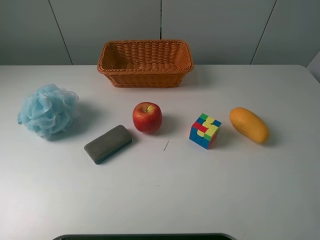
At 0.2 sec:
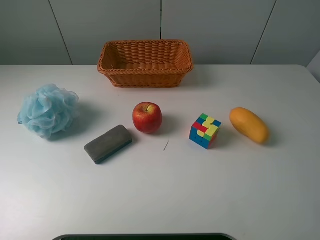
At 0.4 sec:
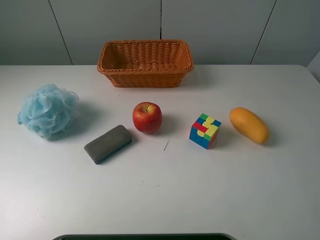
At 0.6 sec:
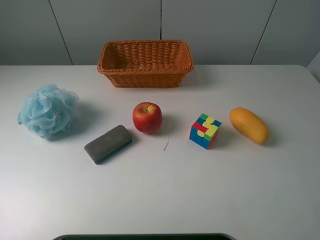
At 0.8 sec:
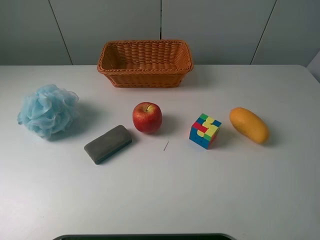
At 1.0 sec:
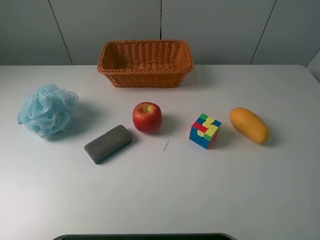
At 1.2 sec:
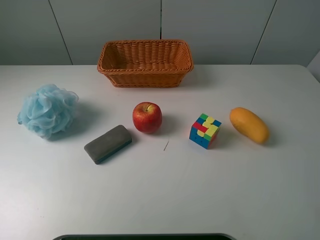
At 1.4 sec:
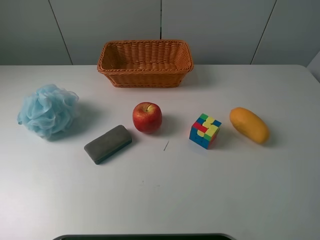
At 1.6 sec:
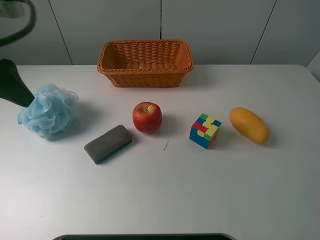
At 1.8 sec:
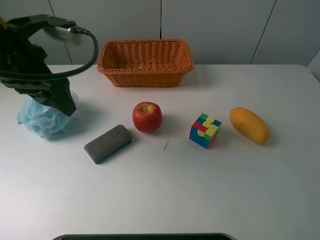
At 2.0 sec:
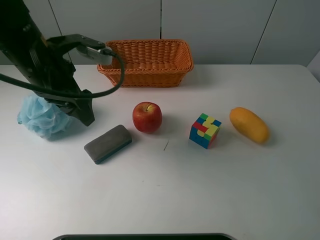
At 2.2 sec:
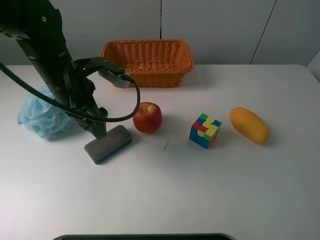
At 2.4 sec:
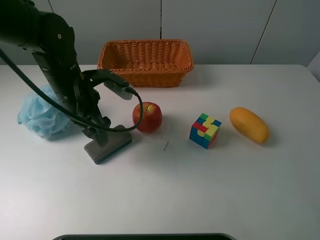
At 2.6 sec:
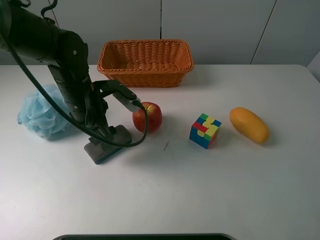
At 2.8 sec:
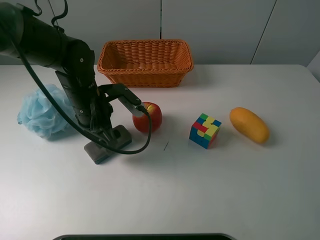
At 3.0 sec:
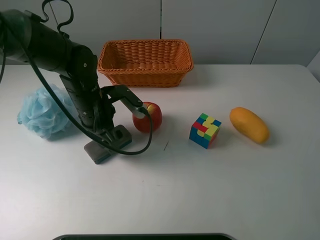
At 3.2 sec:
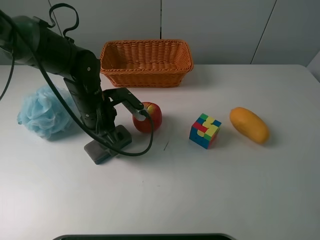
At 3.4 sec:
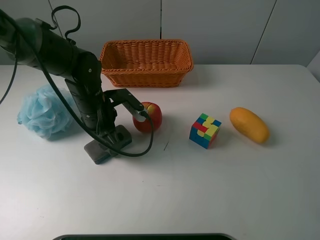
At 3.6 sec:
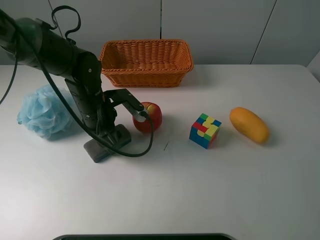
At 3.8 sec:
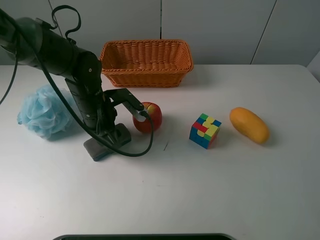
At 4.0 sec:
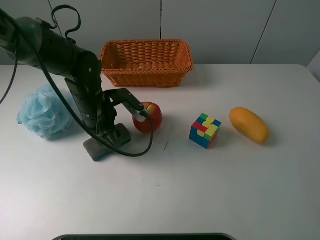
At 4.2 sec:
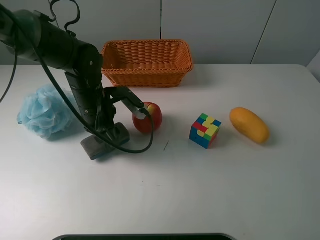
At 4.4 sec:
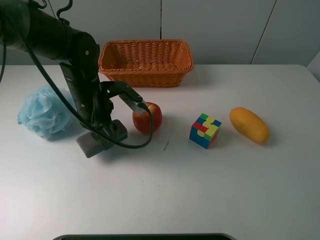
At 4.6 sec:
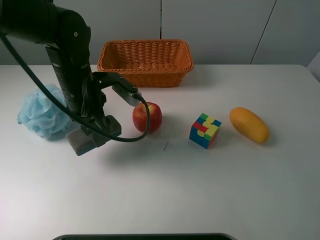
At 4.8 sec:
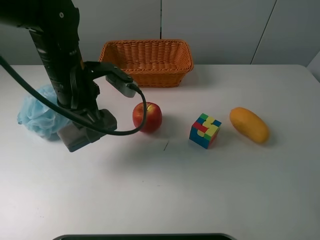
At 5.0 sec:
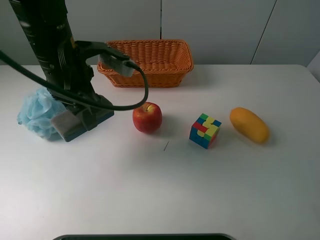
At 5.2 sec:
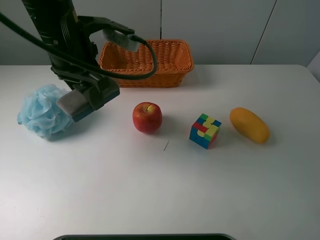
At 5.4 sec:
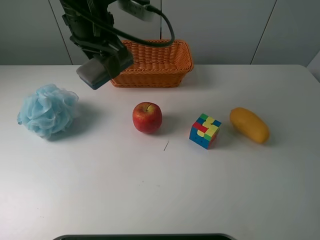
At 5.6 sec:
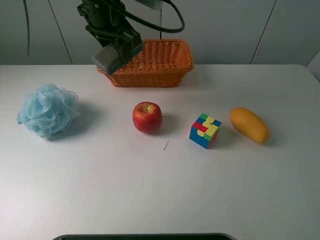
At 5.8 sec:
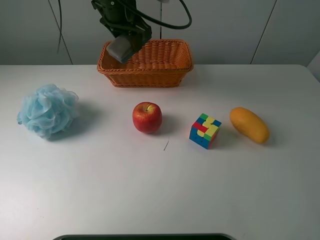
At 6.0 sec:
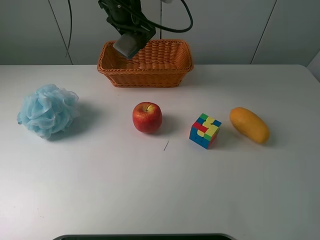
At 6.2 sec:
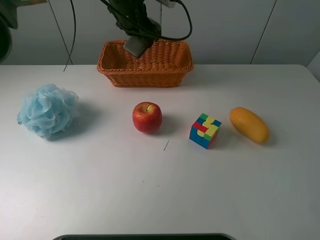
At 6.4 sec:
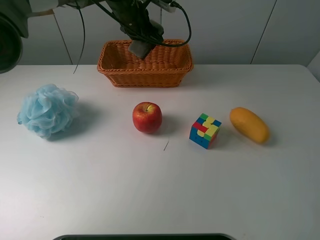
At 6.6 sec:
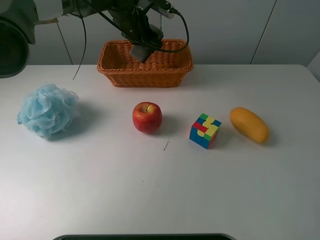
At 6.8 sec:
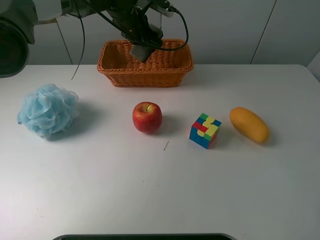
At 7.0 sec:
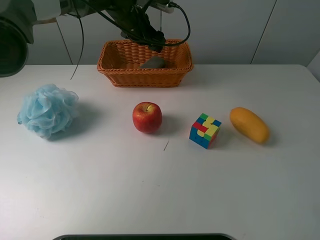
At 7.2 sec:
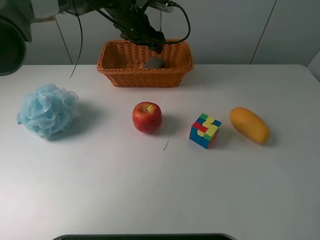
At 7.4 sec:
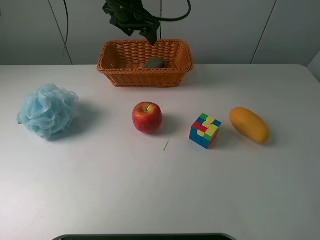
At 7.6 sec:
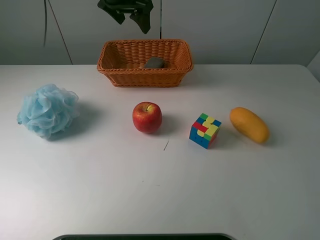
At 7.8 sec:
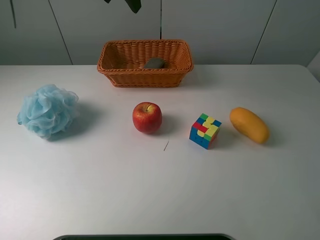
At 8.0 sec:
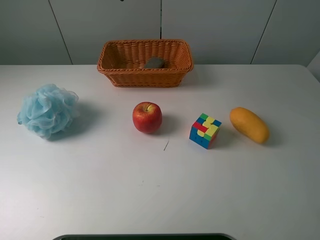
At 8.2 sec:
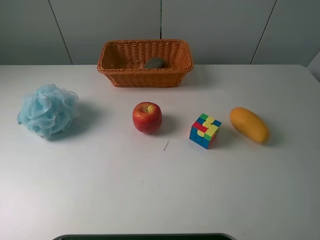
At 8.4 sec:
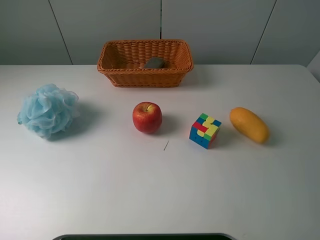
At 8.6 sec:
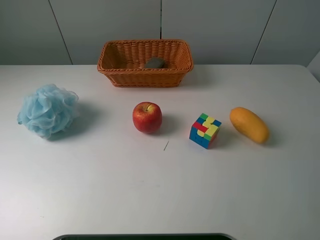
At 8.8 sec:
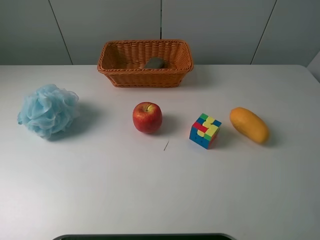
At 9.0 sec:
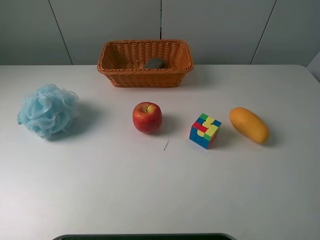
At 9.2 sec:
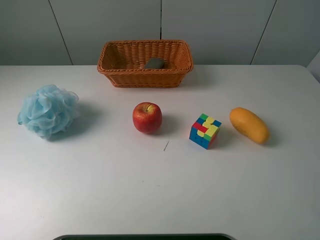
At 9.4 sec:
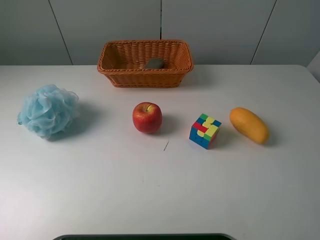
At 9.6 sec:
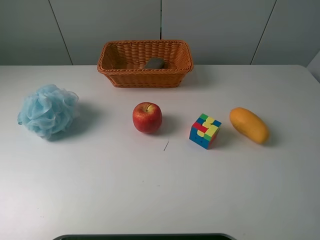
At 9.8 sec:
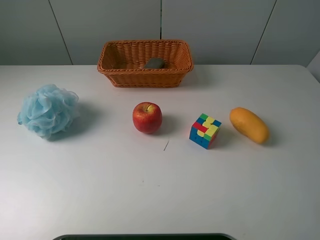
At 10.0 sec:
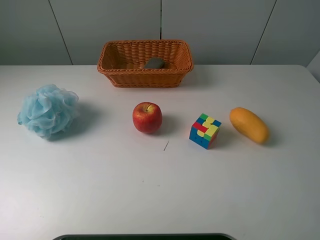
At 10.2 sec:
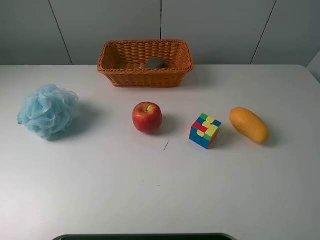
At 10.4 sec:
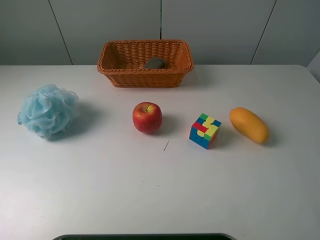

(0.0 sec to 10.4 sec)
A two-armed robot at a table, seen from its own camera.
Task of the whole recording: use a picker to grab the item closest to the apple and place it in the basket.
Step, 0.0 sec - 4.0 sec: Grasp the chalkboard eraser with the left gripper.
Step, 4.2 sec - 7.2 sec: Place the chalkboard eraser into the basket with the left gripper.
0.0 sec - 1.4 sec: The left gripper travels forward by roughly 20 cm.
1.4 sec - 3.0 sec: The left gripper goes some 30 cm downward, to the right and forward.
3.0 sec - 4.4 sec: The left gripper closes up.
4.4 sec - 6.0 sec: The left gripper is displaced forward and upward by some 20 cm.
6.0 sec - 7.4 sec: The left gripper opens up.
7.4 sec - 9.0 sec: The left gripper goes approximately 50 cm backward and to the left.

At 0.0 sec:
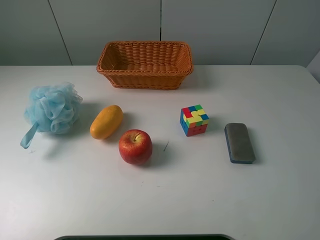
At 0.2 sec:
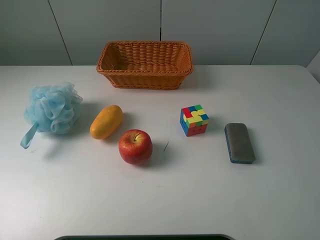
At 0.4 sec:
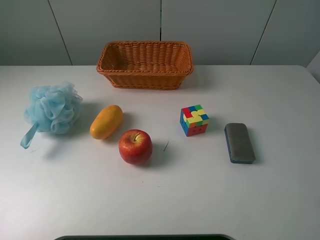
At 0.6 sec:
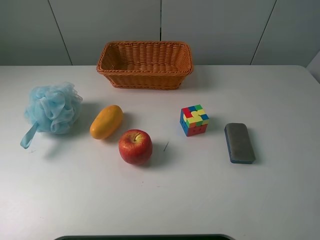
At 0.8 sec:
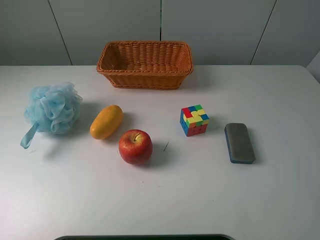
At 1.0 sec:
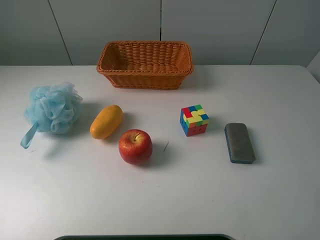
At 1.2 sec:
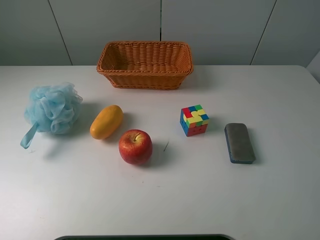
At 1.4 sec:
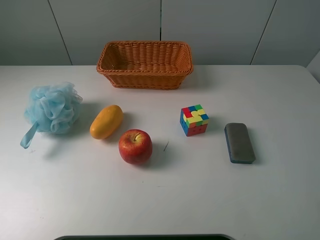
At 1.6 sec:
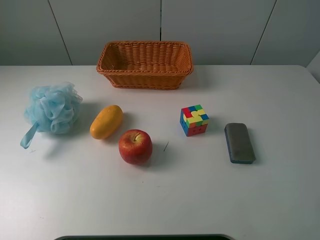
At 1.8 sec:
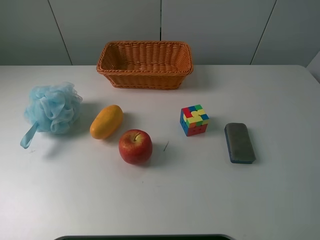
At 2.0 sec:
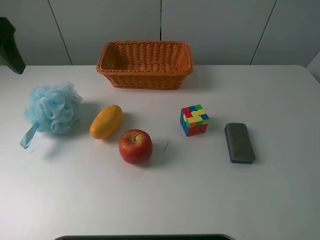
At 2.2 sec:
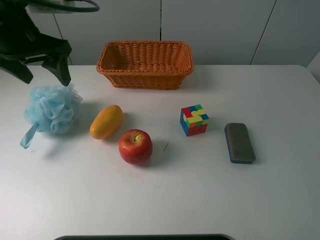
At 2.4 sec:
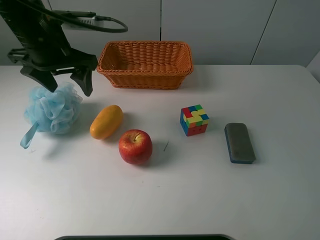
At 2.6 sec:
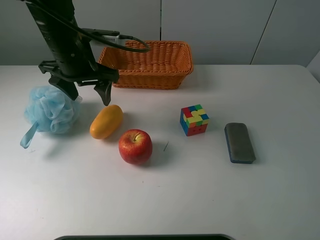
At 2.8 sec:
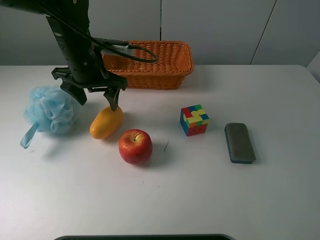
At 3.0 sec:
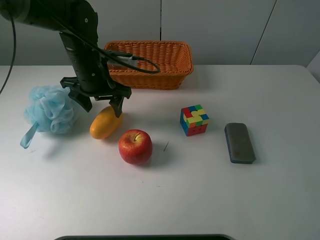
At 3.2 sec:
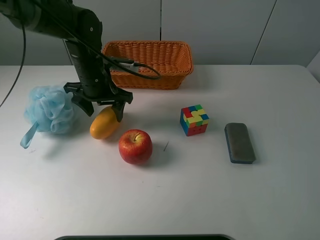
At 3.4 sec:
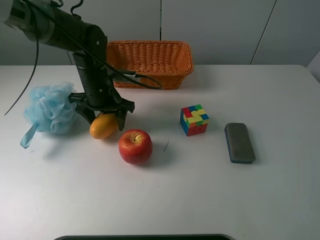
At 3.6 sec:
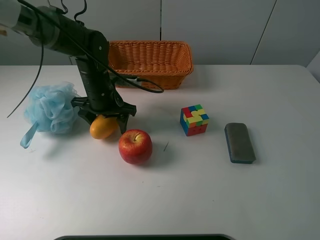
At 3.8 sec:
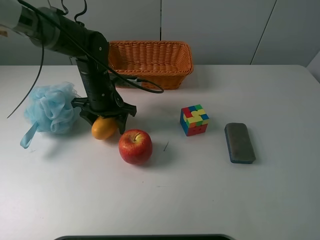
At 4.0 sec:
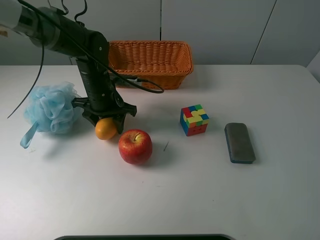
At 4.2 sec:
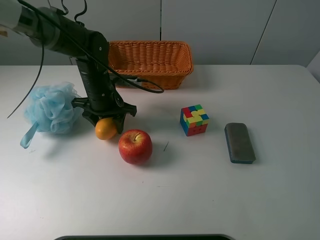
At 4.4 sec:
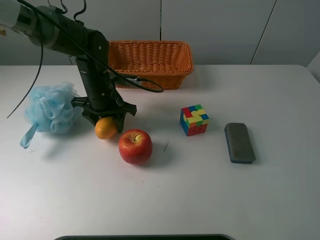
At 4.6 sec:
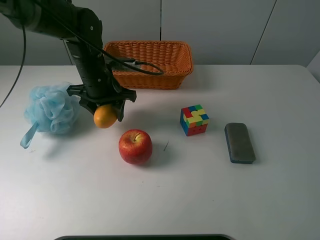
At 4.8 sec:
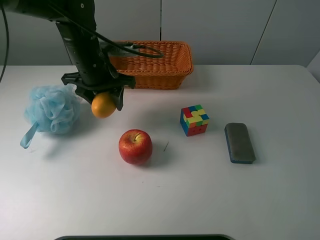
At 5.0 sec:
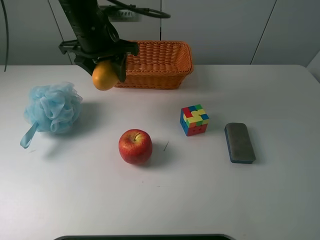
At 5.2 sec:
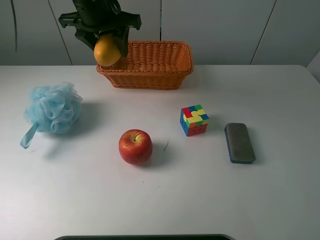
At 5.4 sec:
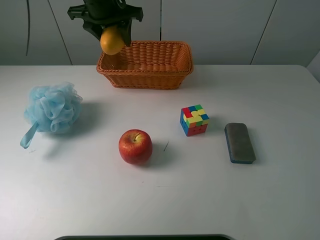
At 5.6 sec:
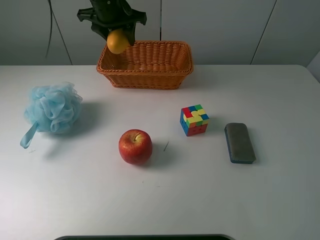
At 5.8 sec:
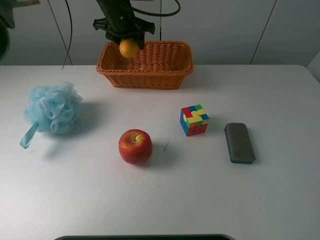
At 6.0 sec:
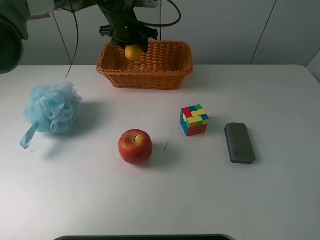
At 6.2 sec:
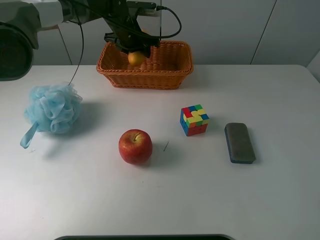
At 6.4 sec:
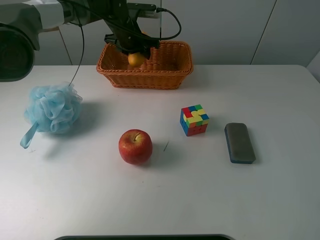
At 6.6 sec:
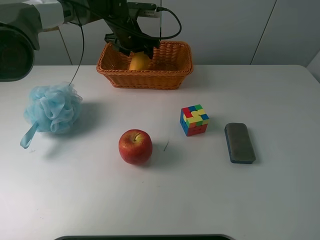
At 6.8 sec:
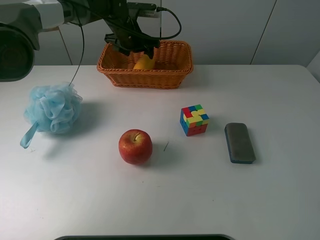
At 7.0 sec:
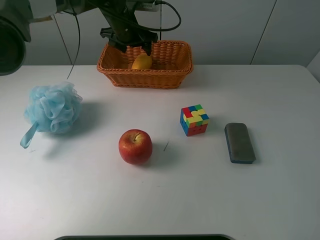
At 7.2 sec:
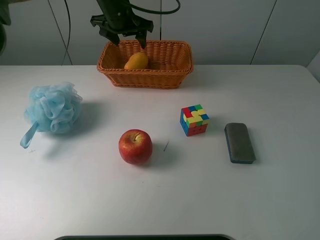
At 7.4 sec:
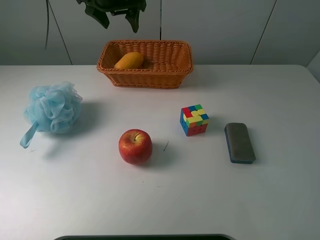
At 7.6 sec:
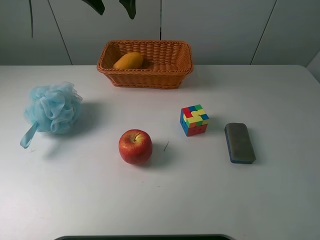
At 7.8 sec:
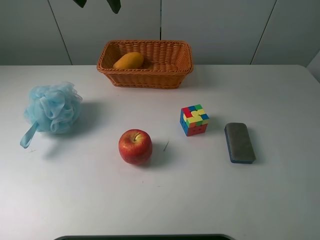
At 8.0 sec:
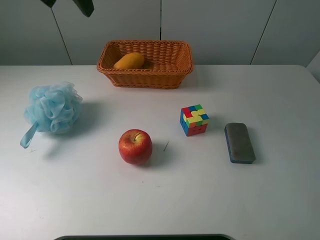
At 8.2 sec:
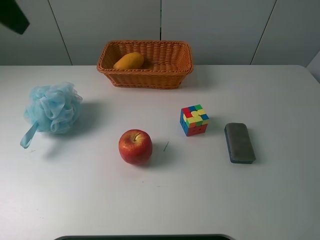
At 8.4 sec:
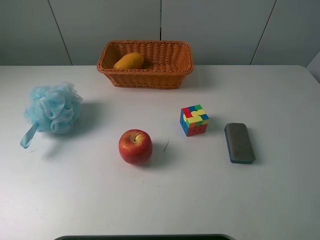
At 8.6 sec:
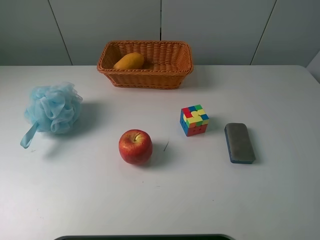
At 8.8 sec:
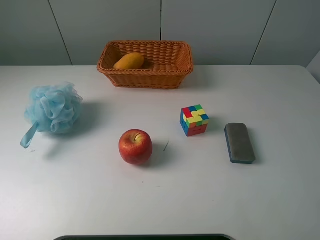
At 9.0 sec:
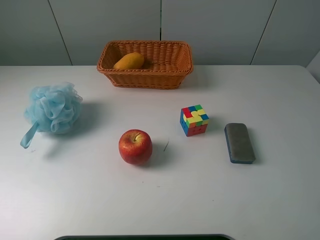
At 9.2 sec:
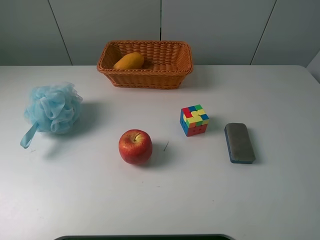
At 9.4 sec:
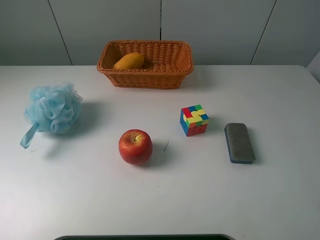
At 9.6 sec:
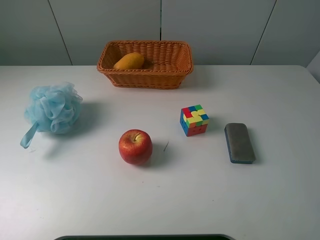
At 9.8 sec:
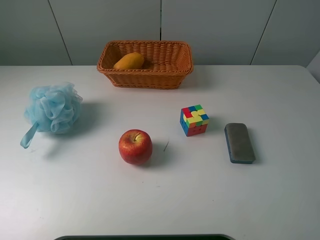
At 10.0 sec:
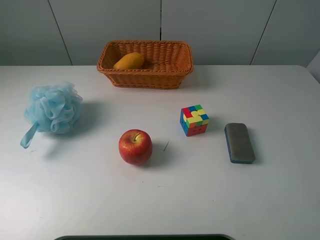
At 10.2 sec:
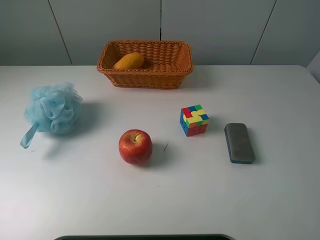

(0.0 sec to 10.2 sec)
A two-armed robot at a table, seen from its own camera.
Task of the whole recording: use a picker to grab the item closest to the apple and place it in the basket.
Step, 0.0 sec - 4.0 sec: Grasp the mango with the left gripper.
Step, 4.2 sec - 7.2 sec: Place the mango into the basket with the left gripper.
1.4 sec - 3.0 sec: The left gripper is displaced forward, downward and to the right by roughly 40 cm.
3.0 sec - 4.4 sec: The left gripper closes its fingers.
4.4 sec - 5.8 sec: The left gripper shifts some 15 cm forward and upward.
5.8 sec - 7.2 sec: The left gripper opens.
7.2 sec - 8.8 sec: The left gripper shifts approximately 50 cm backward and to the left.
